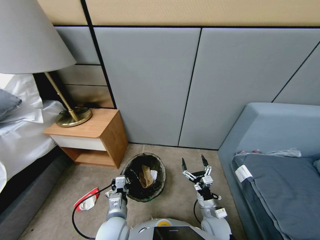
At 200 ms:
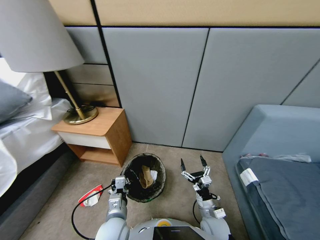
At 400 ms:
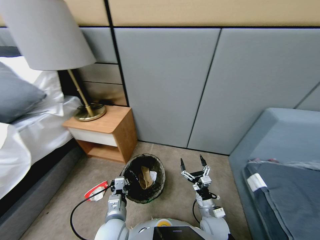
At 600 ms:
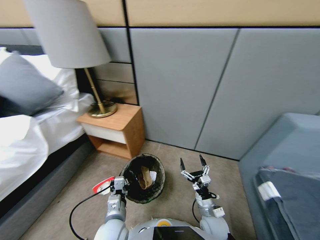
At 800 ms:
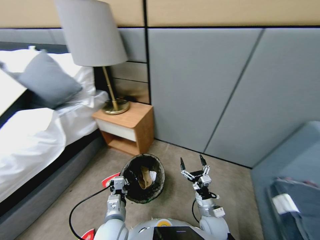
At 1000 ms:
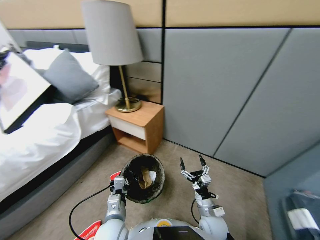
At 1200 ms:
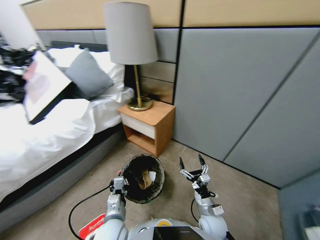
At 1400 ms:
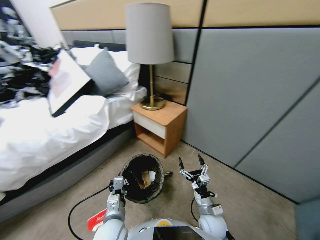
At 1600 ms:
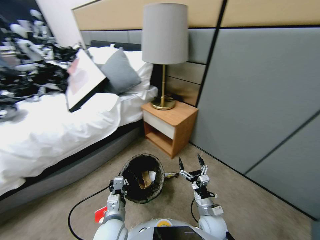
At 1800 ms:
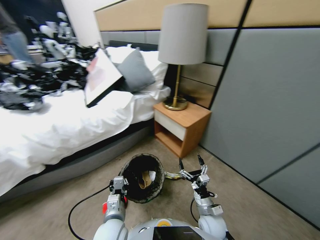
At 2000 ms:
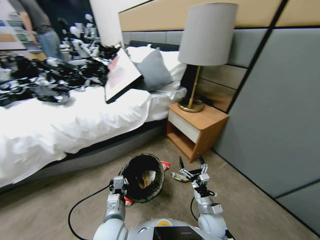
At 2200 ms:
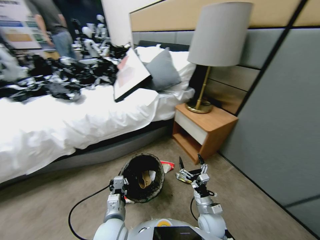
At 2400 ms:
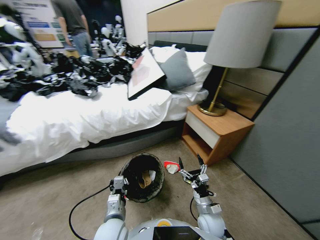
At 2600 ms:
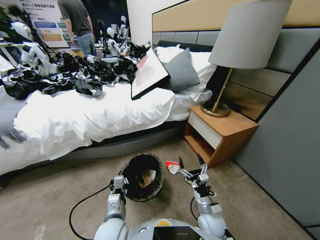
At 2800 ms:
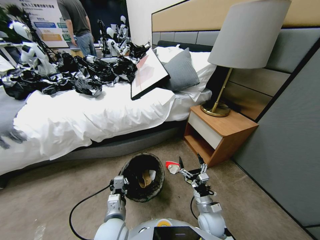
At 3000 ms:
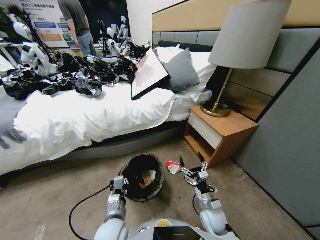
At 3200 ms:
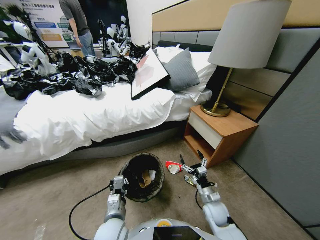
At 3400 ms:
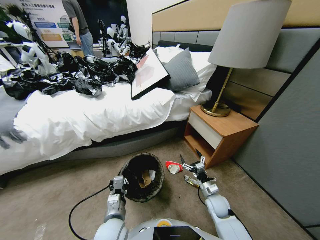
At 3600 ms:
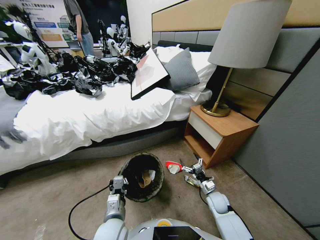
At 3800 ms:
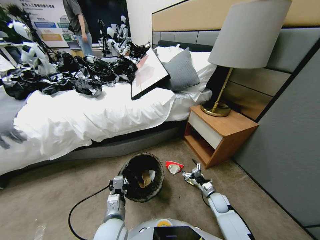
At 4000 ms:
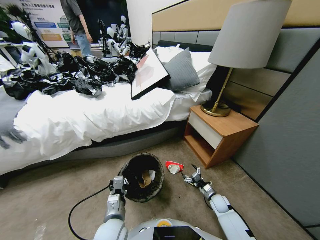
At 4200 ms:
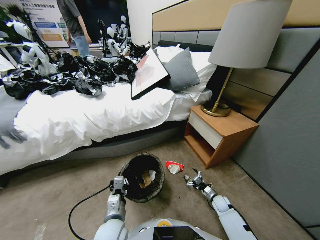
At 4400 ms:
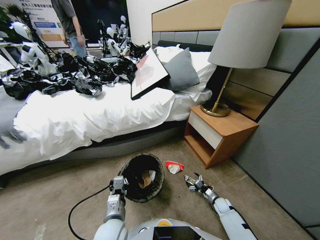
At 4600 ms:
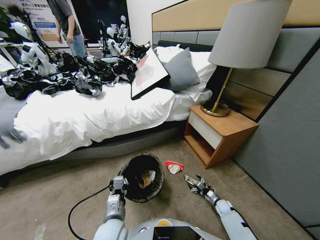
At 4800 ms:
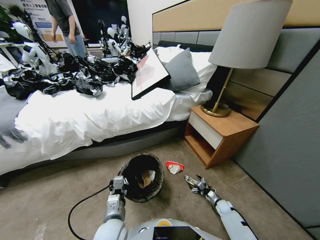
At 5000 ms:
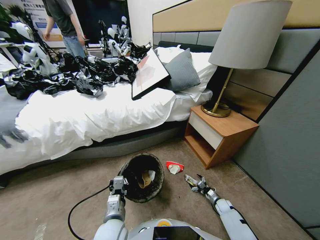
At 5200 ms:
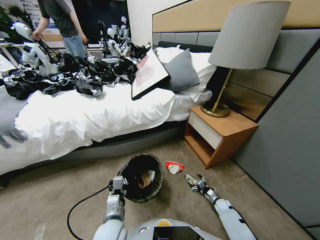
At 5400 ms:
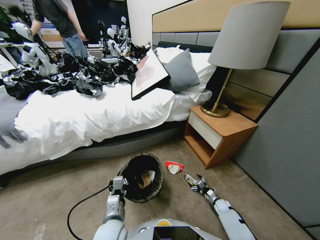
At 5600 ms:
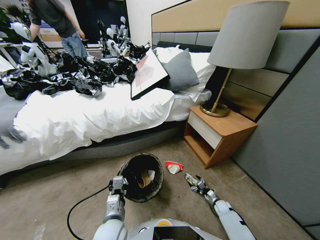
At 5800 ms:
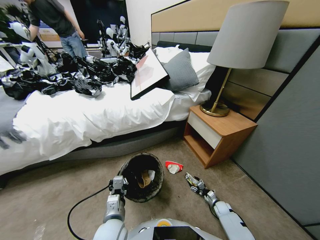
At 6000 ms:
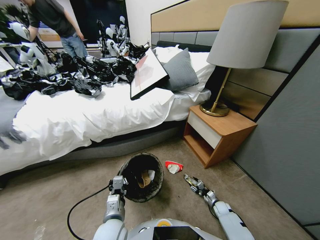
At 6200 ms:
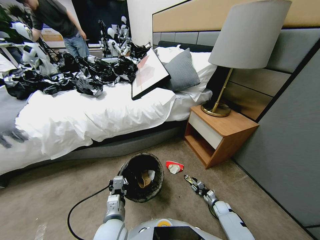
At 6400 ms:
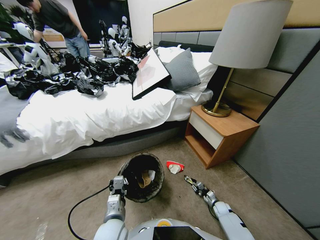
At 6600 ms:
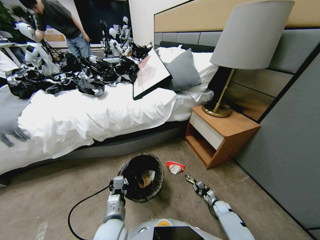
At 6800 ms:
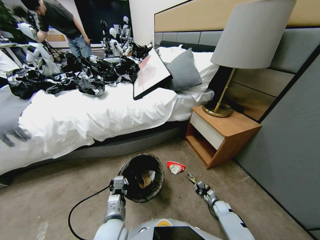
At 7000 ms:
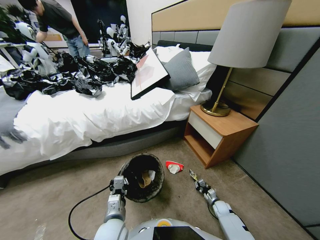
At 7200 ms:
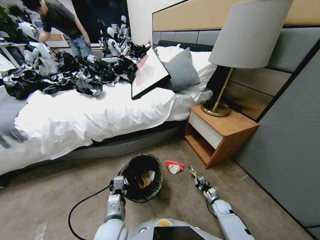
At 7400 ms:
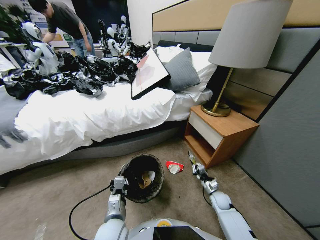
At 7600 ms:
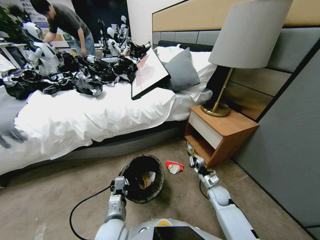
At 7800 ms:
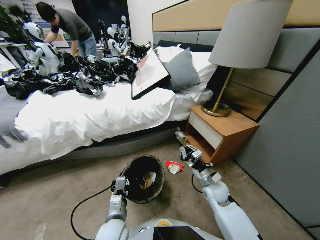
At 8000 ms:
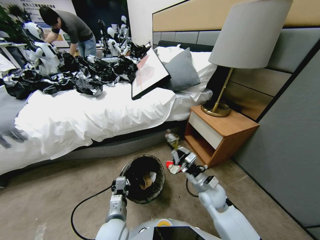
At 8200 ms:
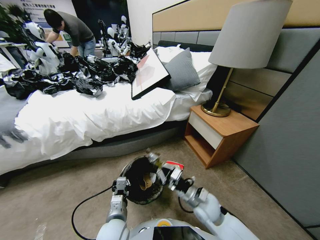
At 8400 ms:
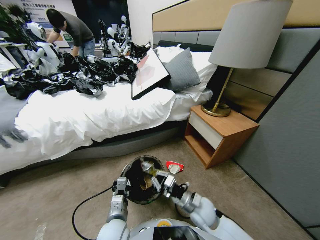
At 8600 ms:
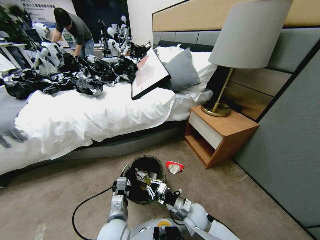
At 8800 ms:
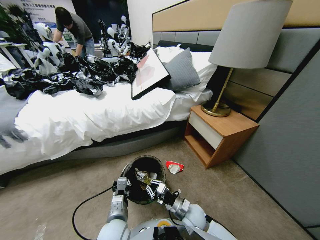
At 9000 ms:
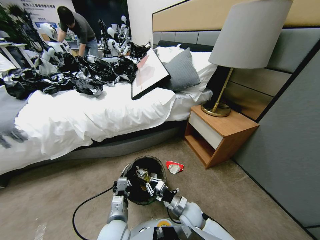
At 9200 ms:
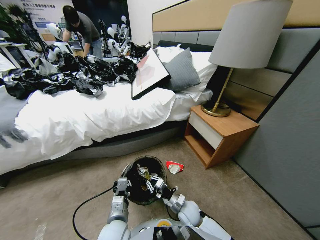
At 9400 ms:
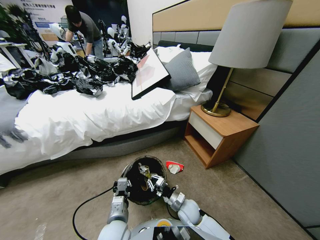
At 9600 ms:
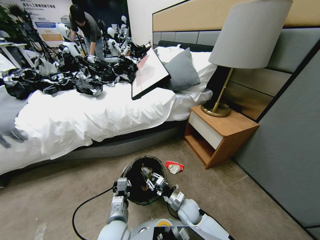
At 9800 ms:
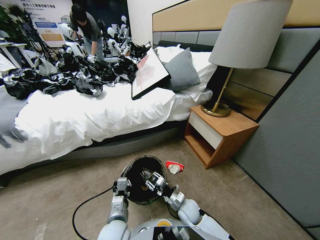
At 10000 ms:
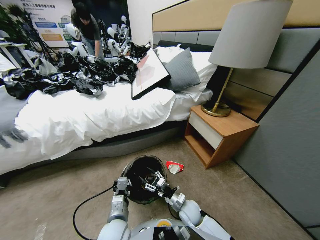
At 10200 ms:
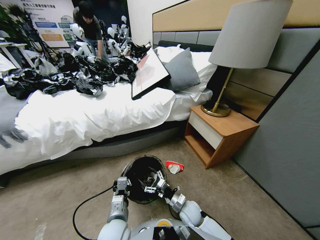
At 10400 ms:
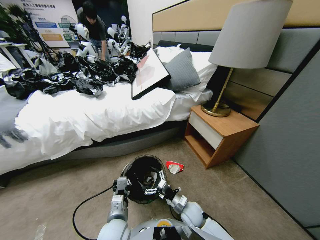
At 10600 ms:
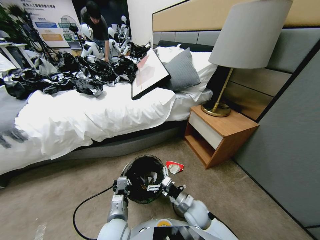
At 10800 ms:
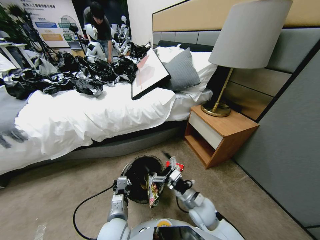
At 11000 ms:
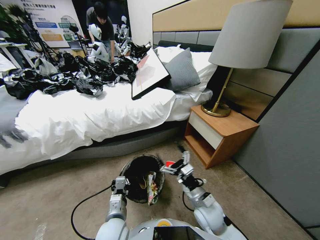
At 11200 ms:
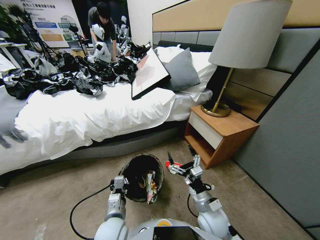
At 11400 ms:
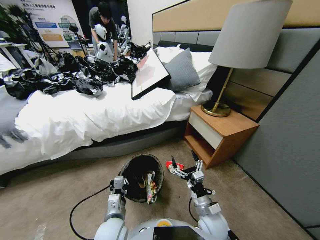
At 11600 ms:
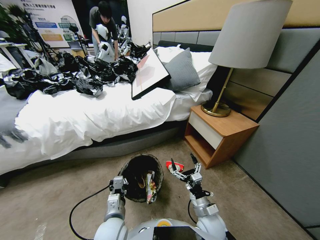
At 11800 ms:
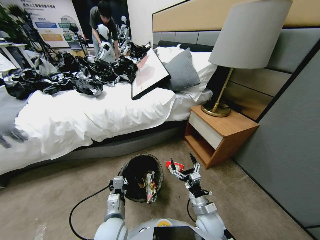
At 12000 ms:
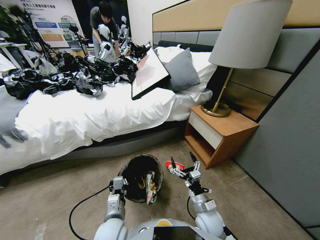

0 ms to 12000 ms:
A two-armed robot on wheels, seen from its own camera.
Task of the whole recording: Pick up the trash bin, then pick up the garbage from the floor and place it into the trash bin.
1600 ms to 3000 ms: The right gripper shifts by approximately 5 cm.
3000 ms to 4400 ms: The right gripper shifts approximately 25 cm downward and to the right.
4400 ms to 6000 ms: The right gripper closes its fingers.
6000 ms to 7600 ms: The right gripper goes some 30 cm upward and to the left, and closes its fingers.
7600 ms to 9000 ms: The right gripper is displaced to the left, backward and downward by about 15 cm.
9000 ms to 10400 ms: The right gripper opens its fingers.

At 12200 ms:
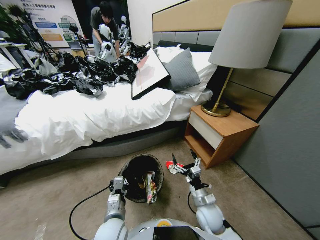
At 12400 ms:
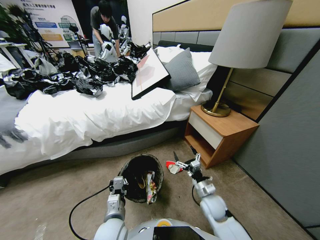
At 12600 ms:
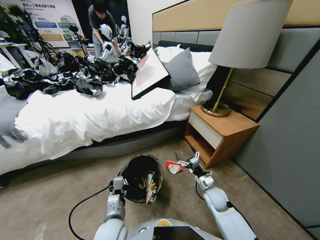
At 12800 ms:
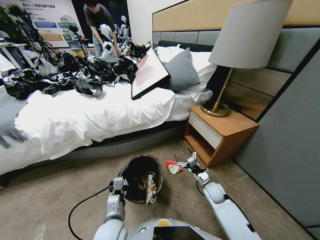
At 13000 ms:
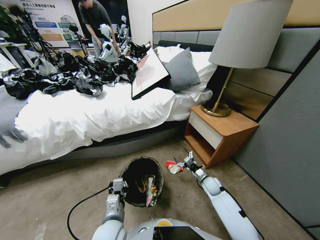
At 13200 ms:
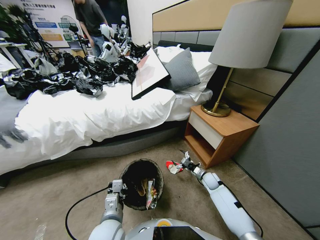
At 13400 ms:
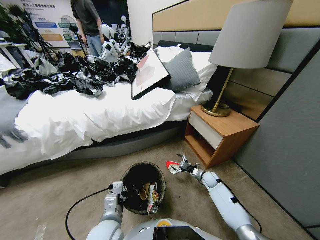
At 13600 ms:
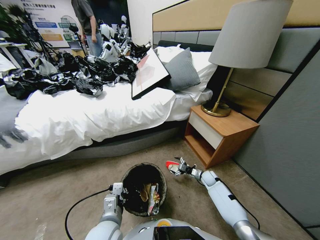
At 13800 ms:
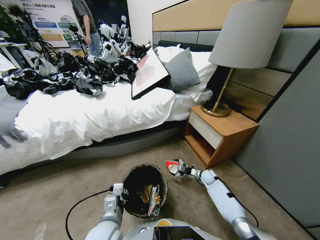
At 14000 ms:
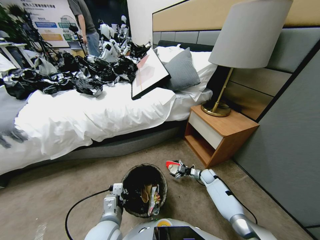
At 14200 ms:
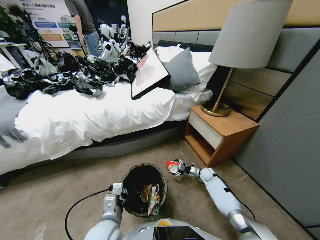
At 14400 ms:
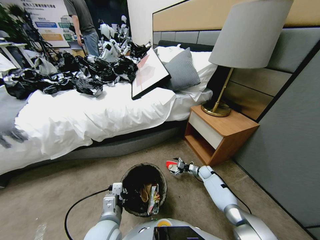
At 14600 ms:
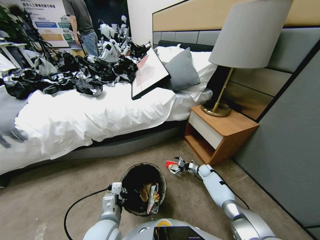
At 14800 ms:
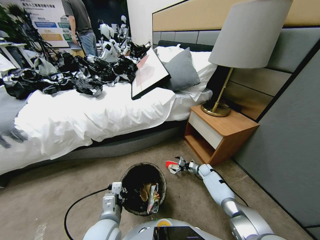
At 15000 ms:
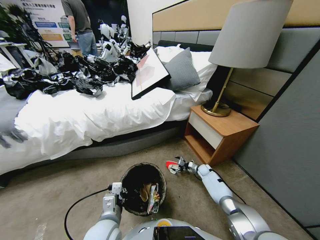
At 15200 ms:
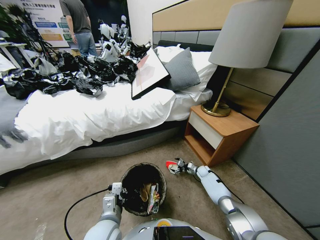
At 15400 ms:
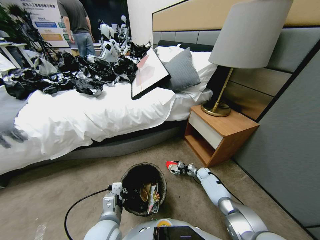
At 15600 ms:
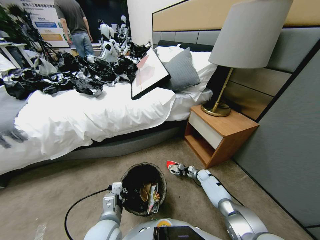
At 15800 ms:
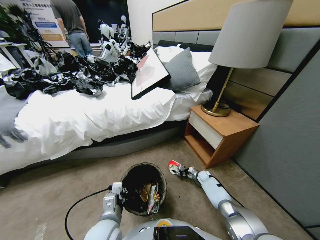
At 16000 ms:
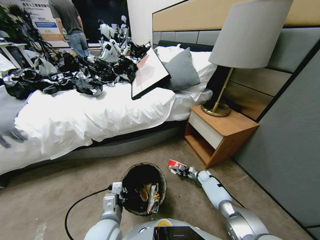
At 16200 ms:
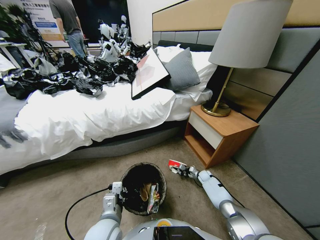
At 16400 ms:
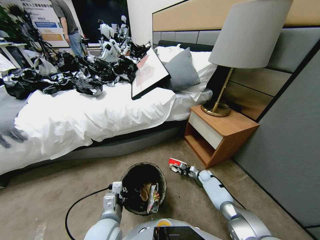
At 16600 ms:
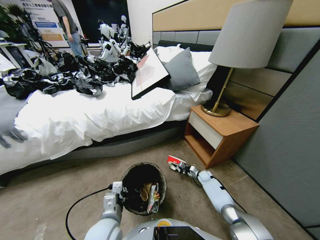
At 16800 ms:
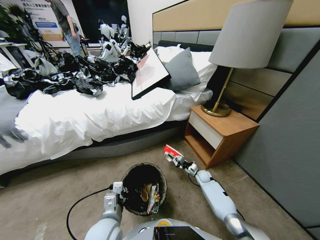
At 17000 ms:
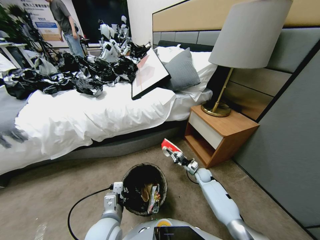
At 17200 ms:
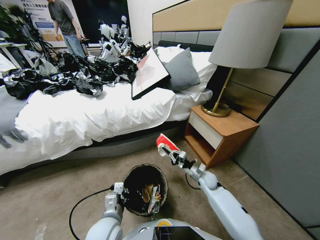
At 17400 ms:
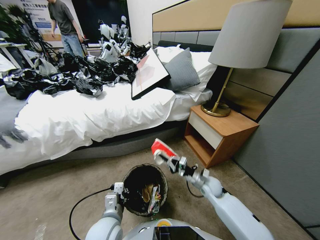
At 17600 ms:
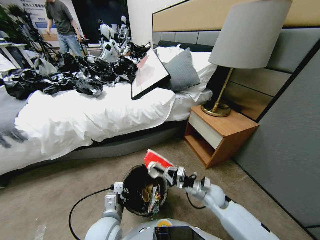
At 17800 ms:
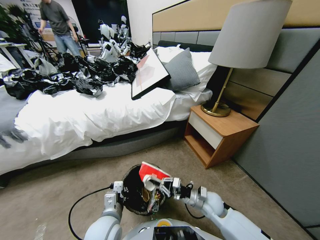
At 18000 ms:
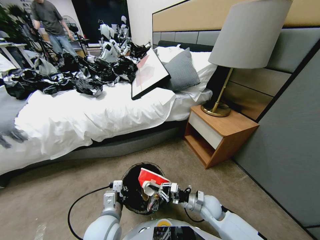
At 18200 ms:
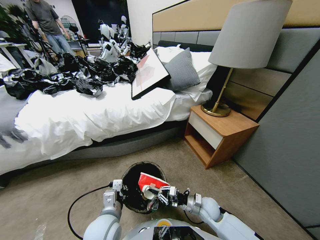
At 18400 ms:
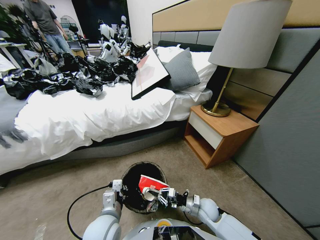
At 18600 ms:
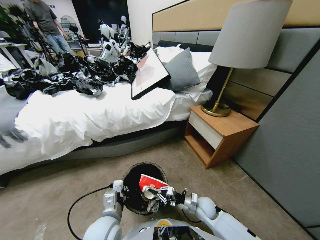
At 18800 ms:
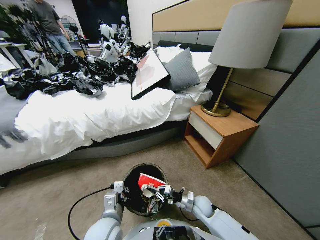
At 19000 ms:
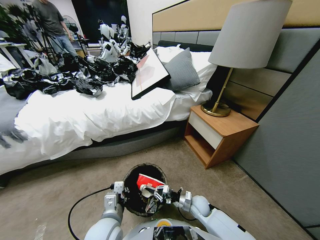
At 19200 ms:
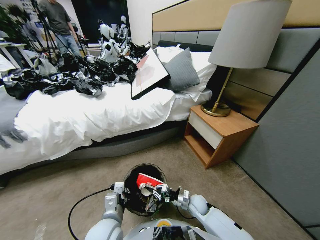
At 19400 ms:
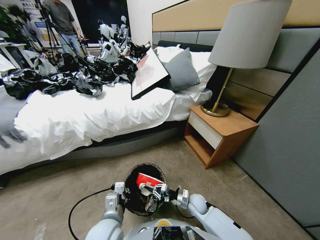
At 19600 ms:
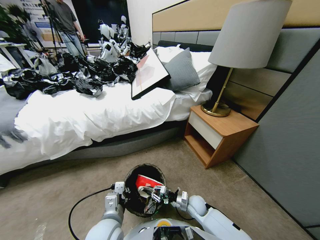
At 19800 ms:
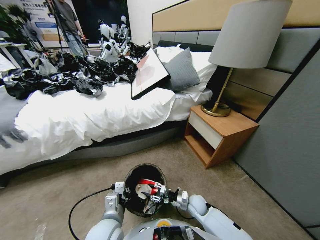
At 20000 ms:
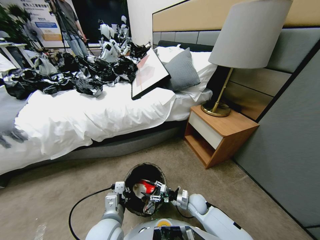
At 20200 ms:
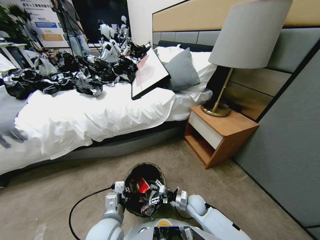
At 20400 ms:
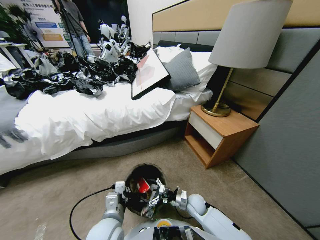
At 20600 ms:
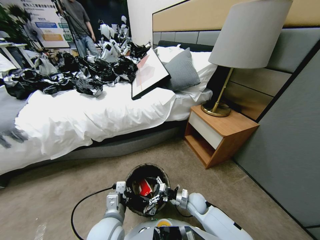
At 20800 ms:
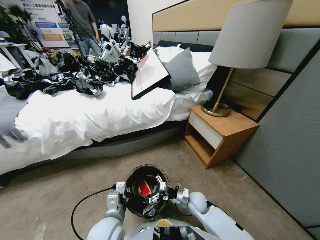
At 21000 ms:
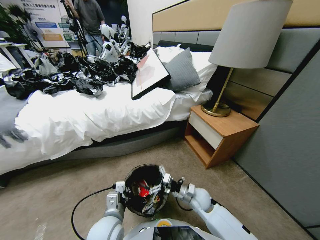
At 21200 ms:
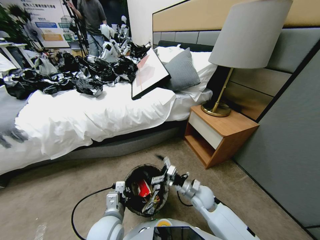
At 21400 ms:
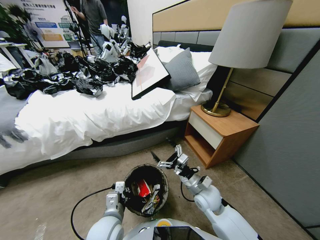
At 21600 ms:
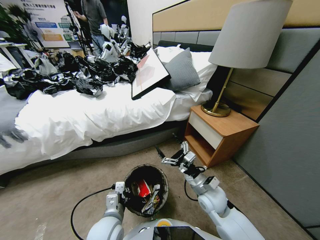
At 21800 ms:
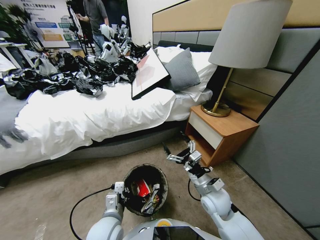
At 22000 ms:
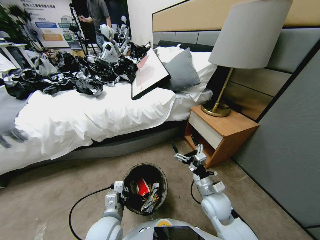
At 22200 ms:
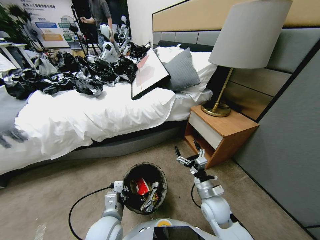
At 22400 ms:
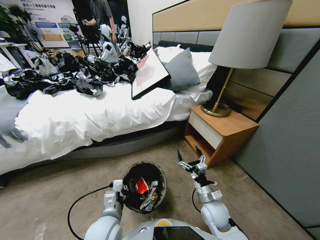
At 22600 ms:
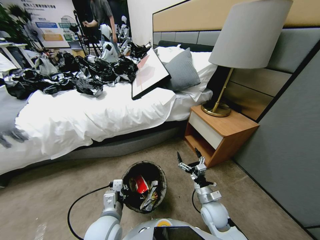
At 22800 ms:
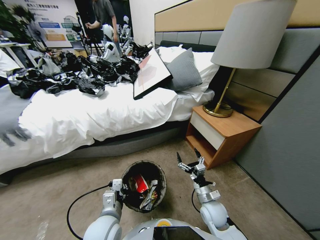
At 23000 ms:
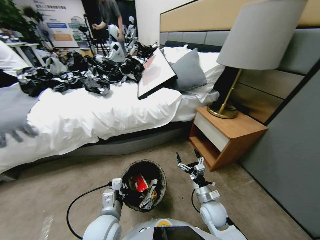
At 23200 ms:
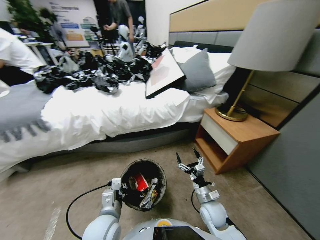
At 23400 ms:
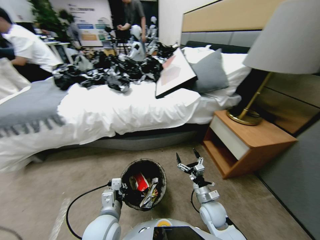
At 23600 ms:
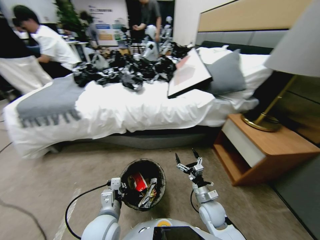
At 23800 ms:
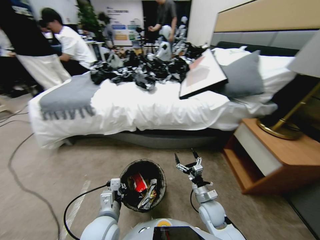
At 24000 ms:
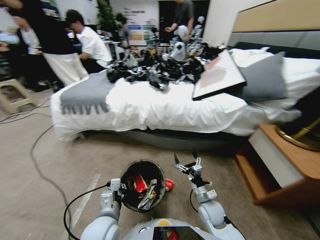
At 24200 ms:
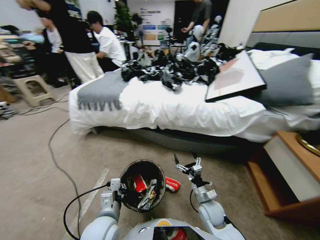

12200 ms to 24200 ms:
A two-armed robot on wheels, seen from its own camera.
Task of the whole recording: Pick up the trash bin, then pick up the garbage from the floor and place it into the trash bin.
12200 ms to 13800 ms: The right gripper heads forward, downward and to the right, covering about 25 cm.
13800 ms to 15200 ms: The right gripper ends up some 5 cm from where it was.
15200 ms to 16600 ms: The right gripper closes up.
16600 ms to 18200 ms: The right gripper shifts roughly 25 cm backward, upward and to the left.
18200 ms to 19800 ms: The right gripper shifts by roughly 5 cm, and opens its fingers.
19800 ms to 21200 ms: The right gripper travels upward by some 15 cm, and opens its fingers.
21200 ms to 22600 ms: The right gripper shifts roughly 5 cm downward.
